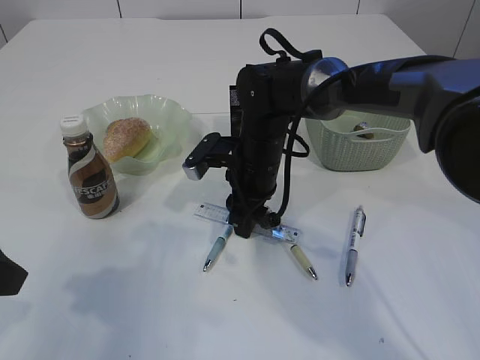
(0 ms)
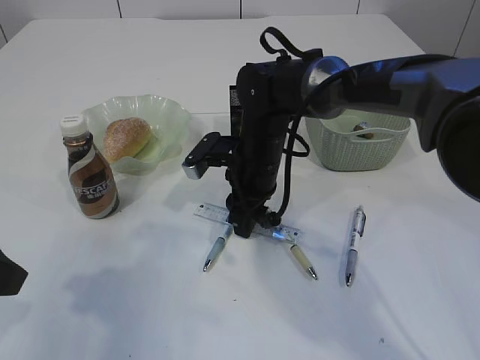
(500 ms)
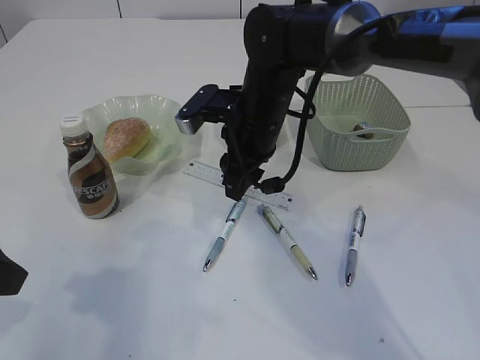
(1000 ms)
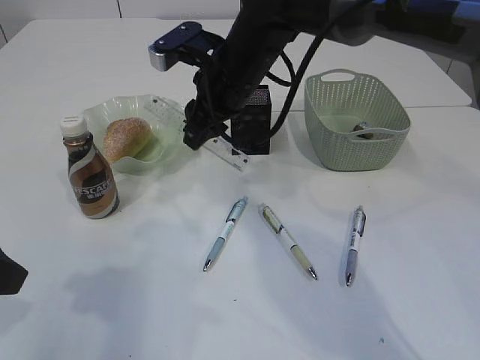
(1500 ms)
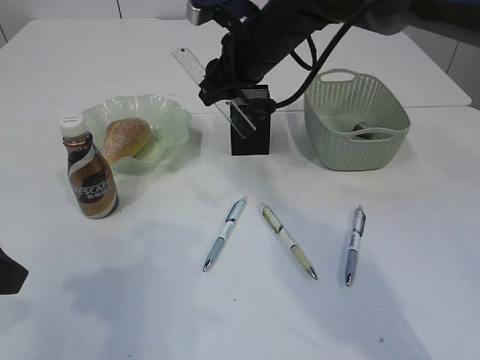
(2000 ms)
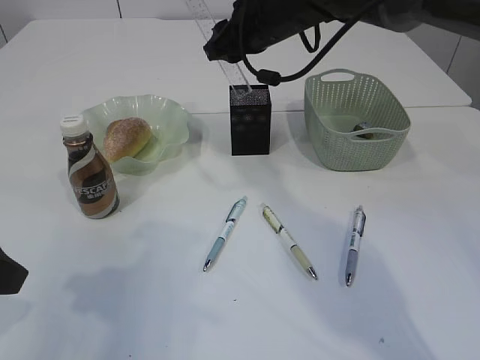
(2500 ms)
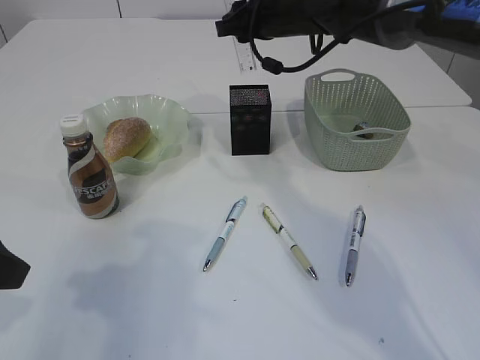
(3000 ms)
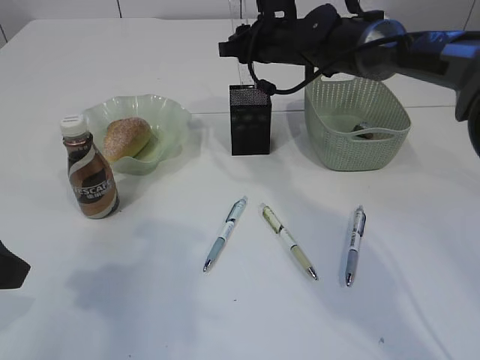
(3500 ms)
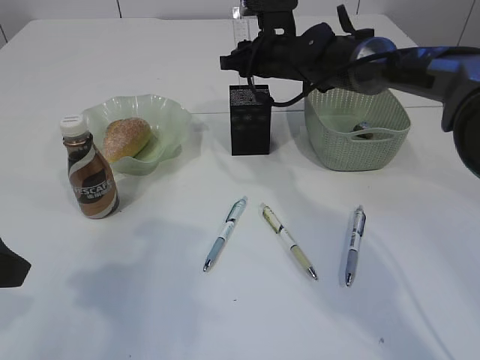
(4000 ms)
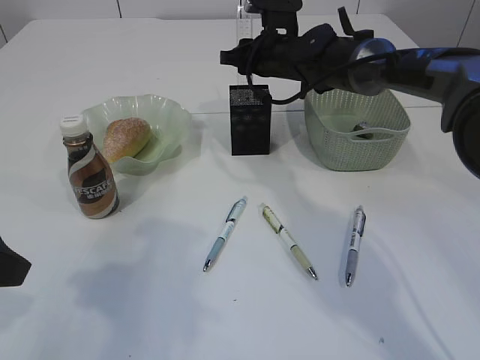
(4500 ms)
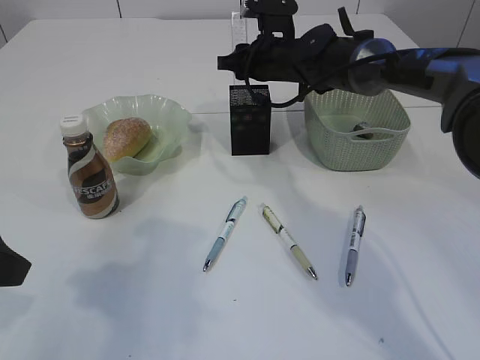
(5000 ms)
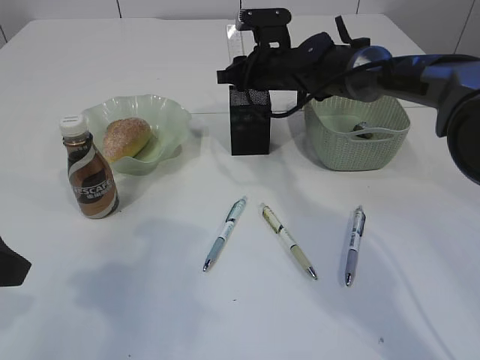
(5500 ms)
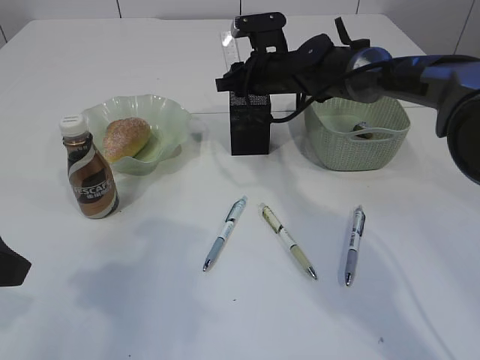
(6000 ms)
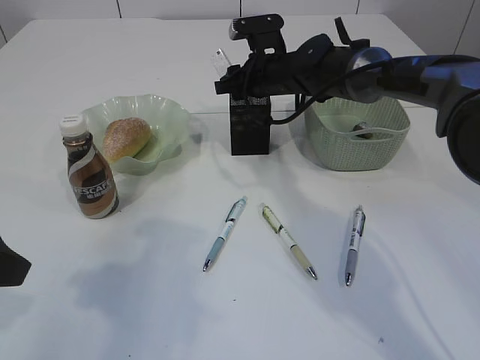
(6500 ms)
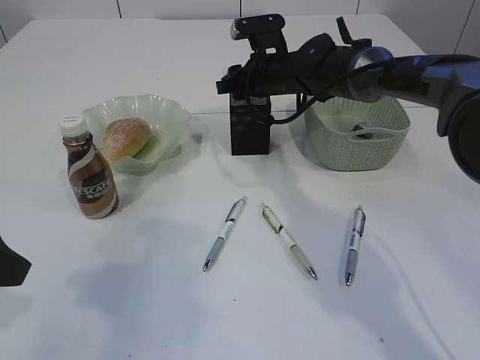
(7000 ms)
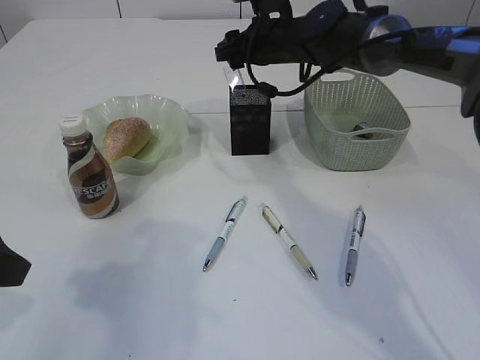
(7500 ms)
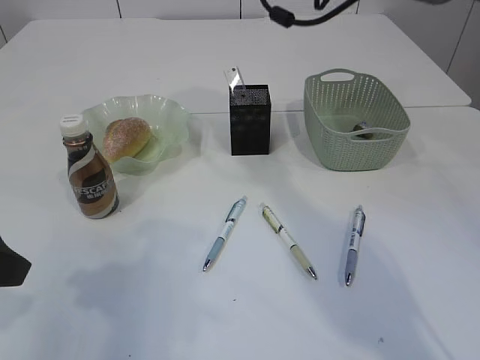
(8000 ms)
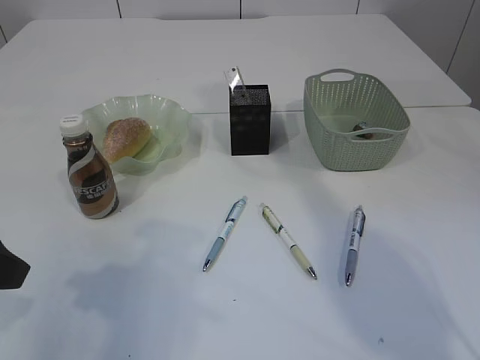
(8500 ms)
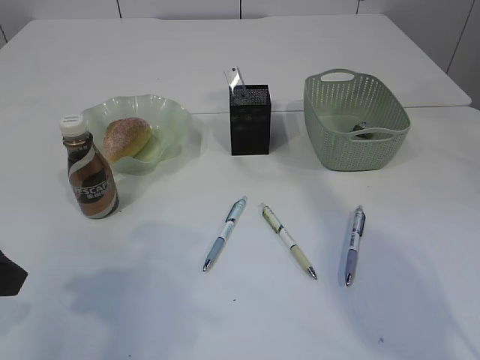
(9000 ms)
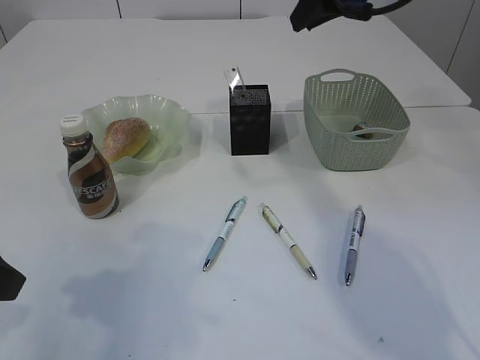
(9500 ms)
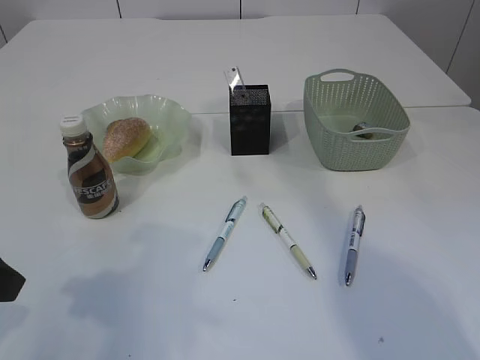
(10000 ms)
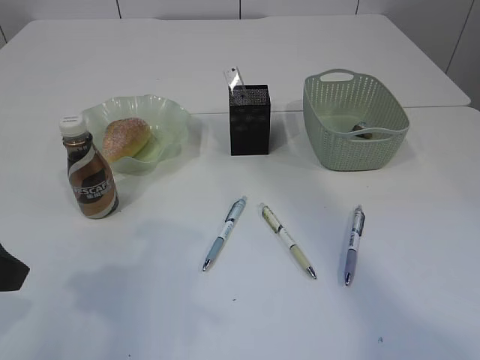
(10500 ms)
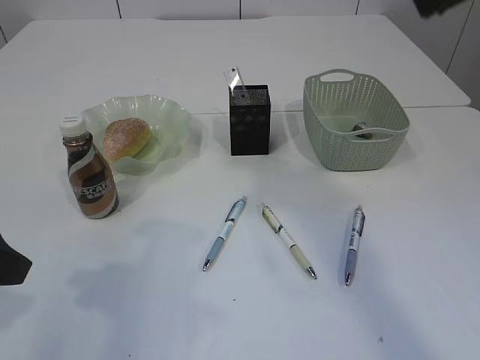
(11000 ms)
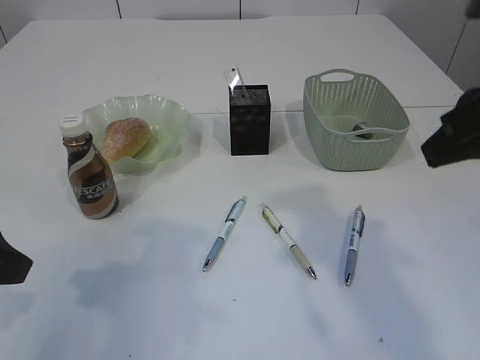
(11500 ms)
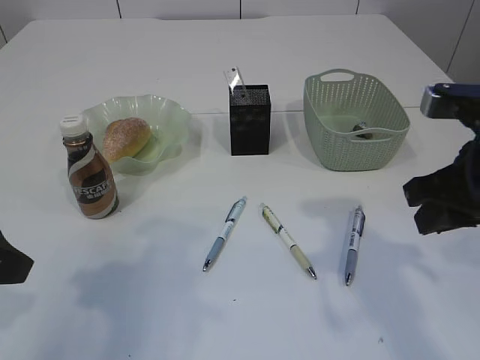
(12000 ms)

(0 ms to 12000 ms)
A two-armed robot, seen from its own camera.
Step, 1500 ms - 7500 ms: Place the ruler into the pen holder.
0 ms - 2000 ms: The right gripper shifts some 15 cm upward.
2000 ms - 4000 ms: The right gripper is displaced forward and downward by approximately 10 cm.
4000 ms - 6000 ms: The grippers move only a little.
6000 ms - 8000 ms: The right gripper shifts about 15 cm upward, and opens.
8000 ms - 10000 ms: The right gripper is displaced backward, to the right and upward by roughly 15 cm, and closes its fingers.
10000 ms - 12000 ms: The right gripper travels downward and backward by approximately 25 cm.

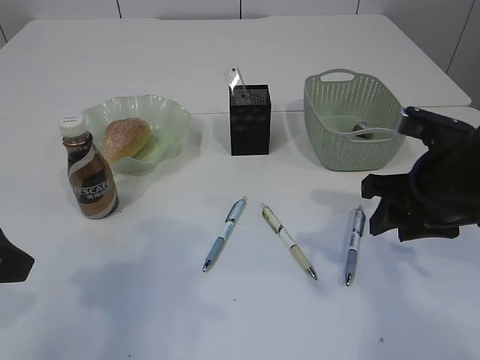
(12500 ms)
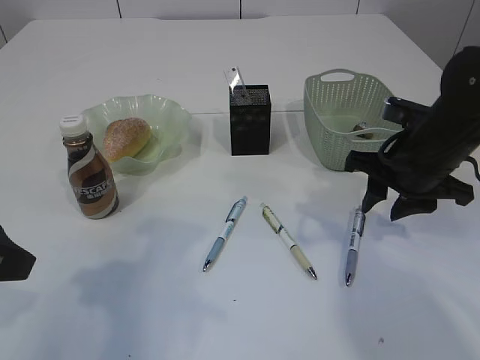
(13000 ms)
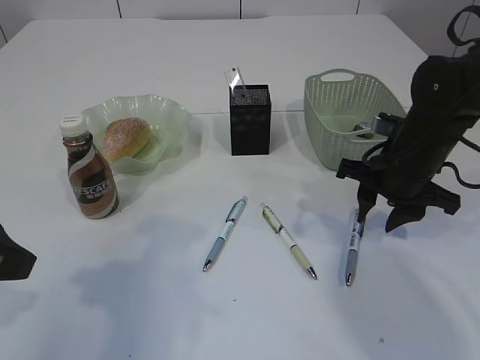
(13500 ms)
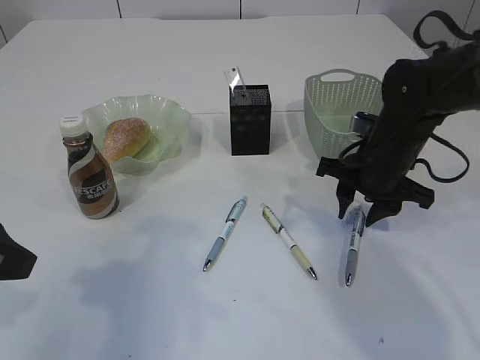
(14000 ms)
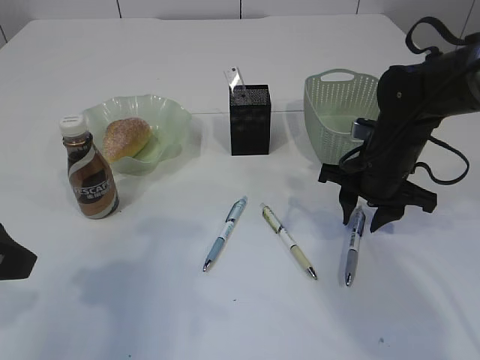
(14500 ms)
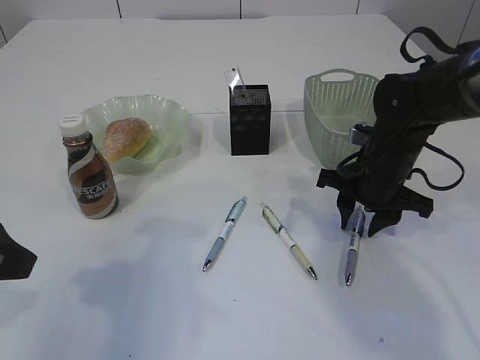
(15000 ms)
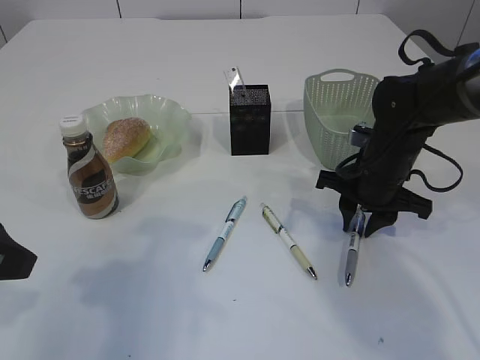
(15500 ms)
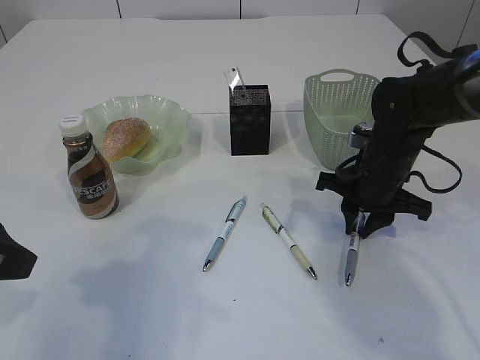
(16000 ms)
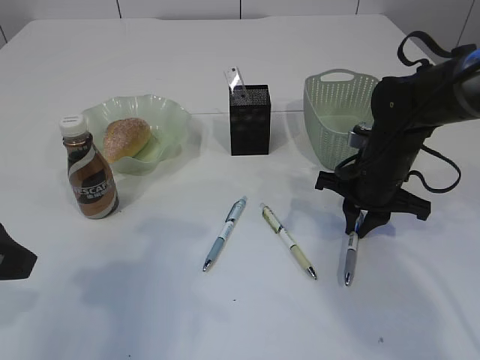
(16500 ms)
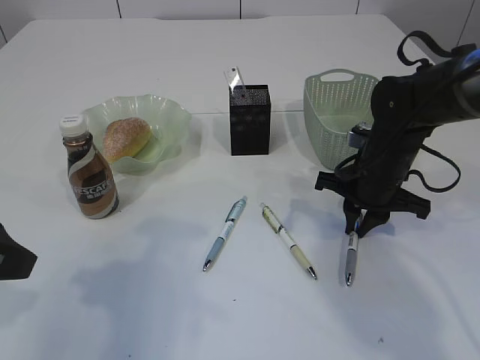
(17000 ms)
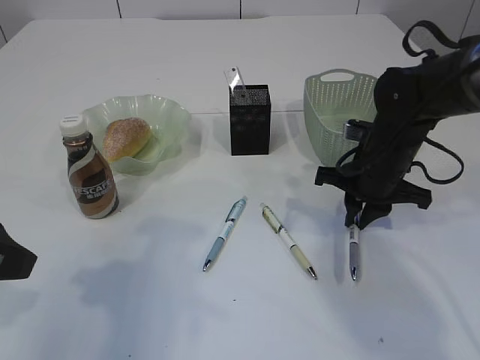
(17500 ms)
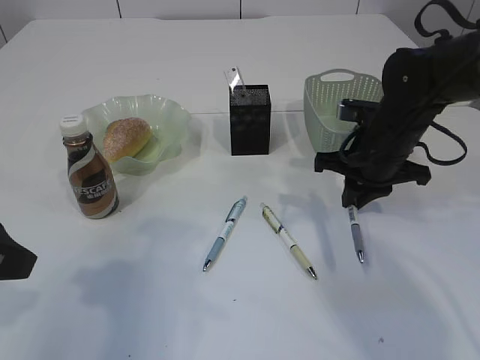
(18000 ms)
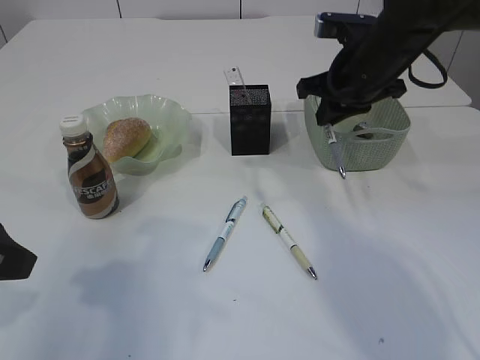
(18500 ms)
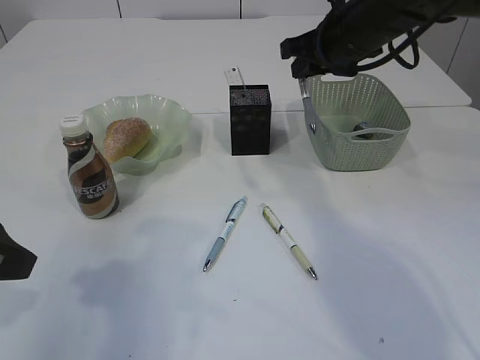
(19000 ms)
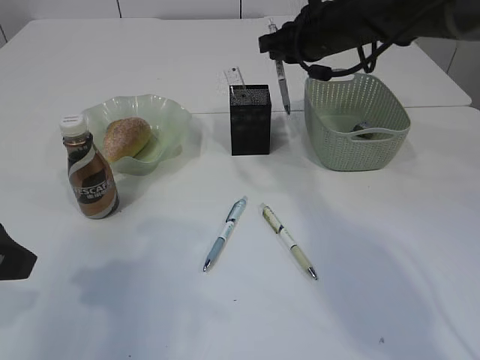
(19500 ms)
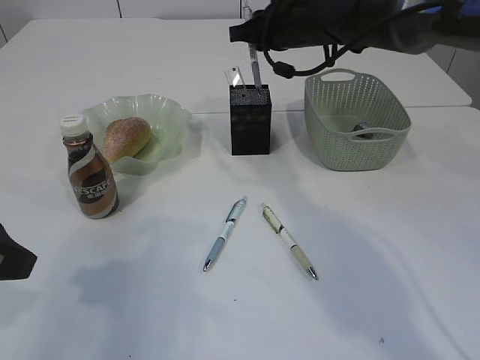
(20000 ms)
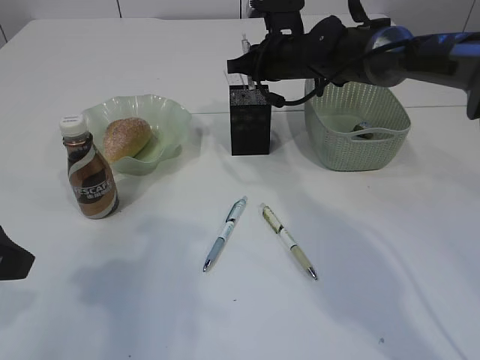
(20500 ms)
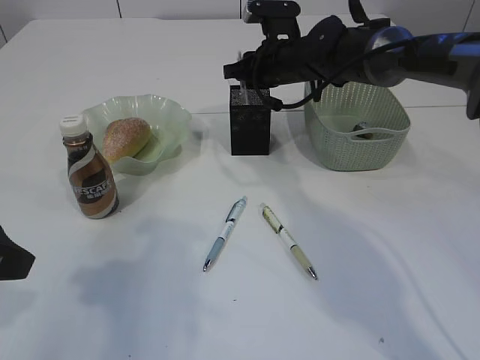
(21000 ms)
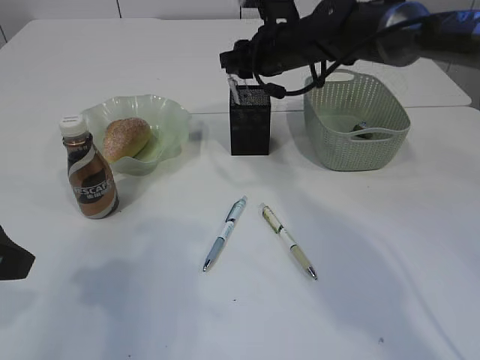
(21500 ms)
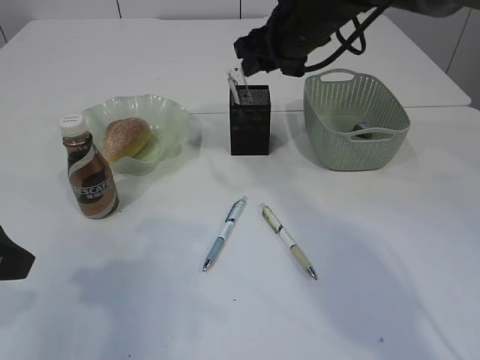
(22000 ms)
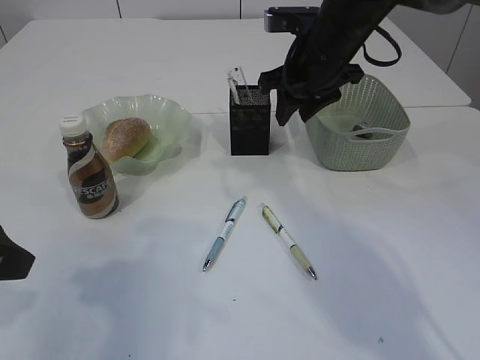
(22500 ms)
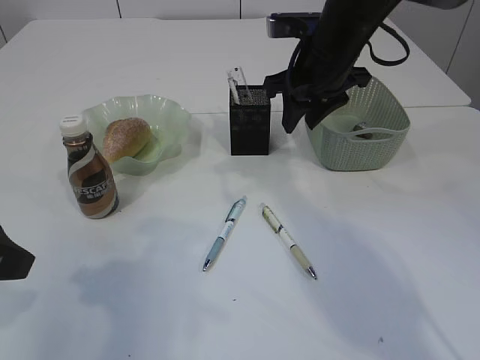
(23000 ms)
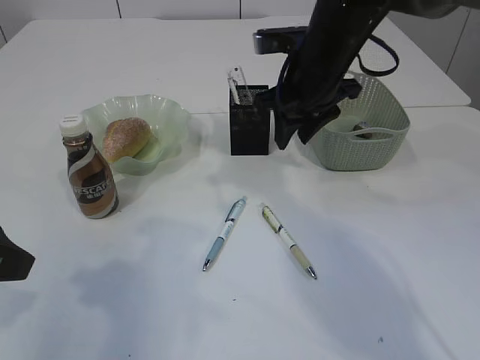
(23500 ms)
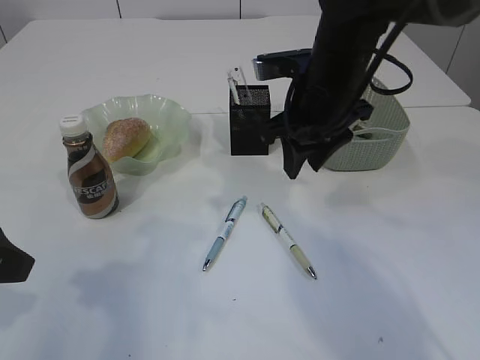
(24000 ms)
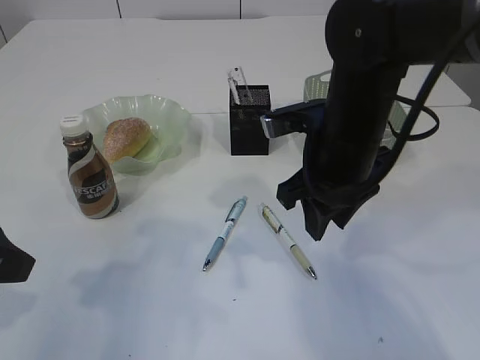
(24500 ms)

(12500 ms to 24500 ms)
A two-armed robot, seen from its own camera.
Step, 12500 ms - 18000 ms: Pick up the pen with right arm.
Step, 18500 ms - 21500 ms: Place the pen into the pen holder.
12500 ms - 14500 ms: The right gripper is displaced forward by about 10 cm.
14500 ms - 16500 ms: The right gripper closes up.
16500 ms - 18500 ms: The right gripper moves upward and forward, roughly 15 cm.
18500 ms - 20500 ms: The right gripper is displaced forward and to the left by approximately 10 cm.
20500 ms - 22500 ms: The right gripper heads backward and upward, covering some 10 cm, and opens up.
22500 ms - 24500 ms: The right gripper shifts some 15 cm backward.

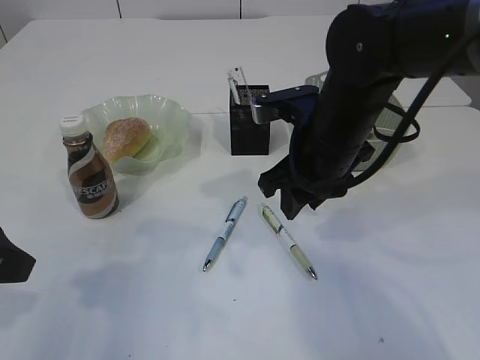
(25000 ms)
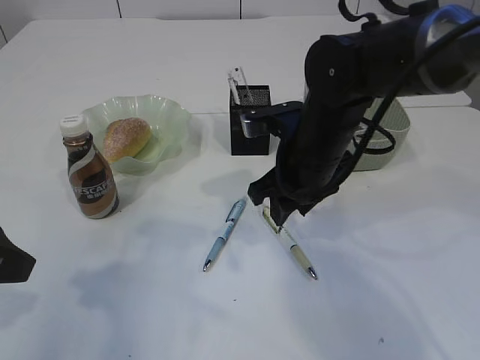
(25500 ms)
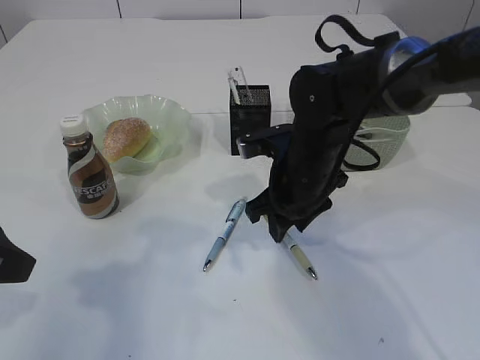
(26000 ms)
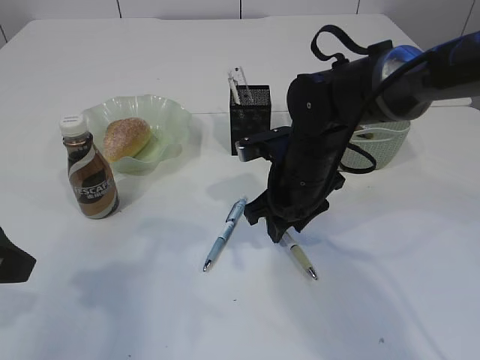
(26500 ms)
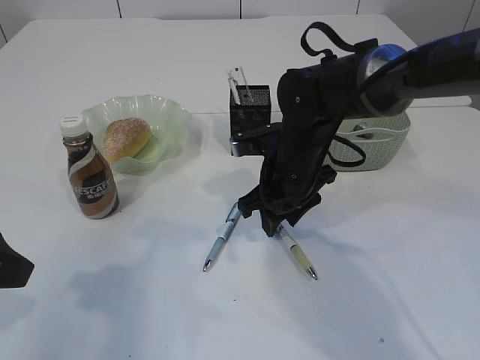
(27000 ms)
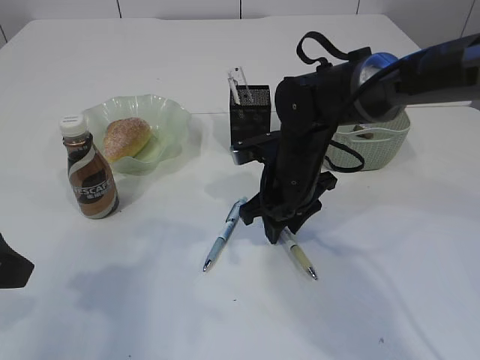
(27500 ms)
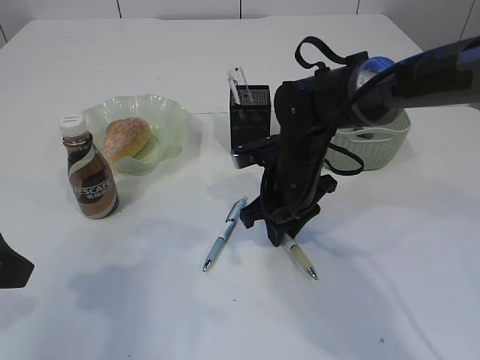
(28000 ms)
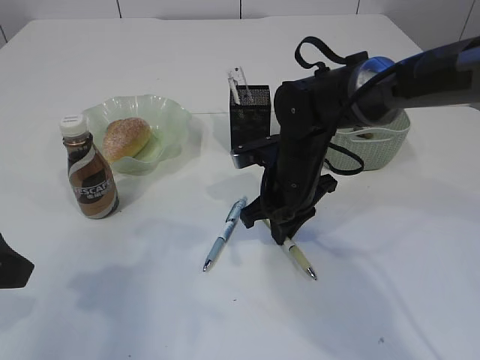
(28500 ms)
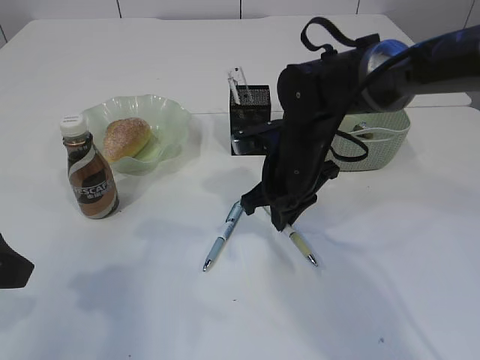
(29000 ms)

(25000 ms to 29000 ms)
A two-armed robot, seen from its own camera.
25000 ms - 27000 ms: The right gripper shifts about 10 cm downward.
27000 ms - 29000 ms: The right gripper closes its fingers.
